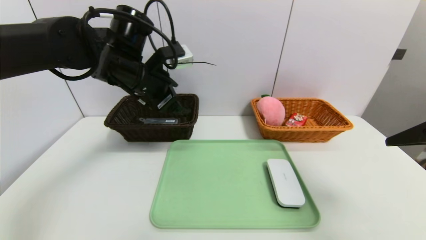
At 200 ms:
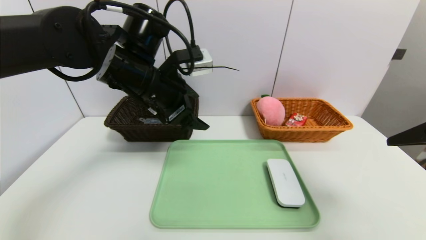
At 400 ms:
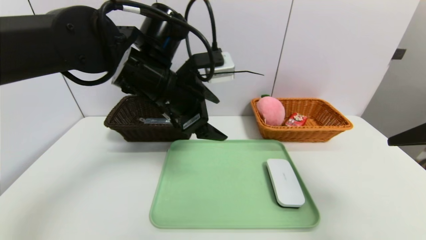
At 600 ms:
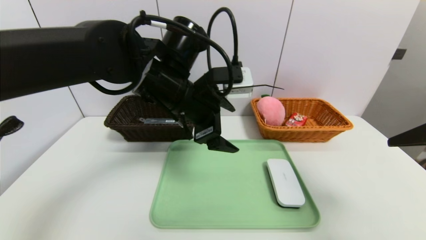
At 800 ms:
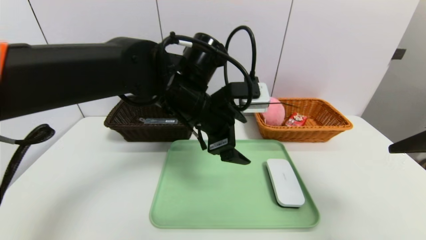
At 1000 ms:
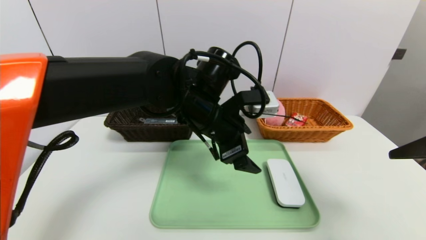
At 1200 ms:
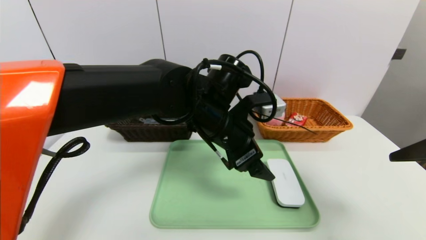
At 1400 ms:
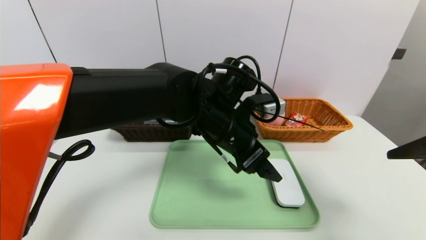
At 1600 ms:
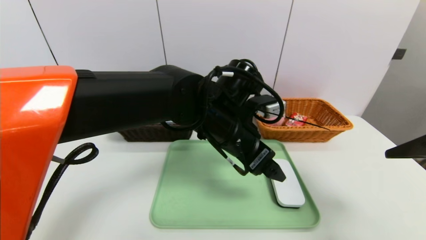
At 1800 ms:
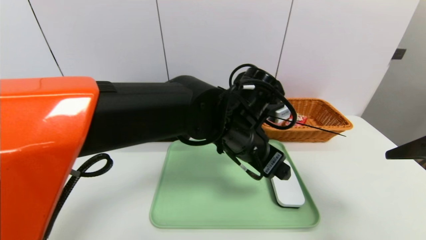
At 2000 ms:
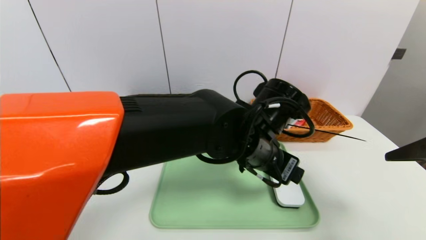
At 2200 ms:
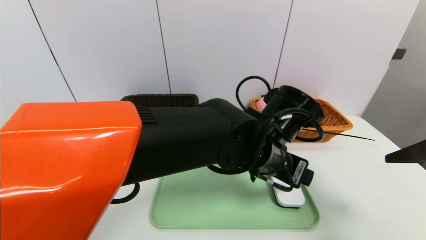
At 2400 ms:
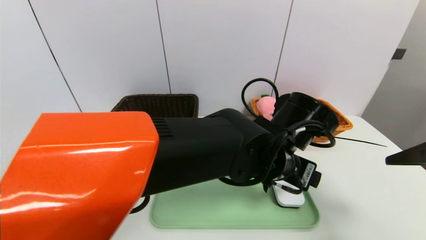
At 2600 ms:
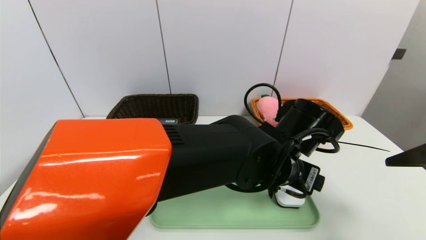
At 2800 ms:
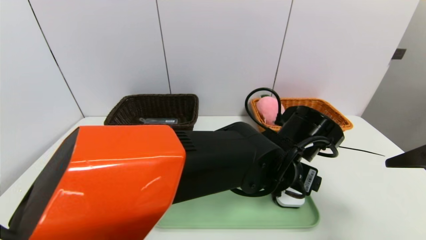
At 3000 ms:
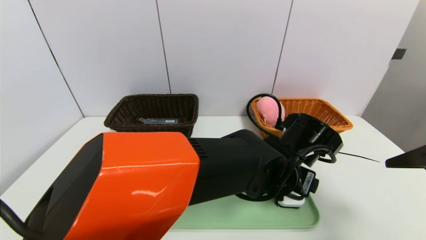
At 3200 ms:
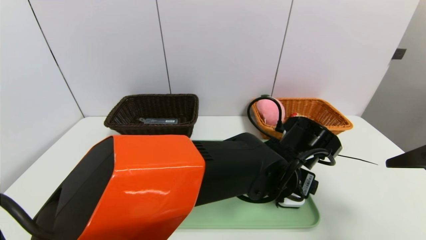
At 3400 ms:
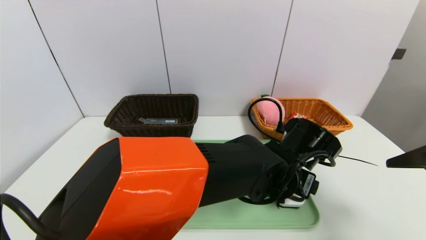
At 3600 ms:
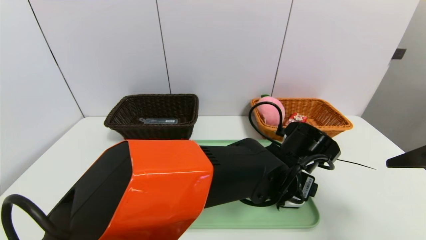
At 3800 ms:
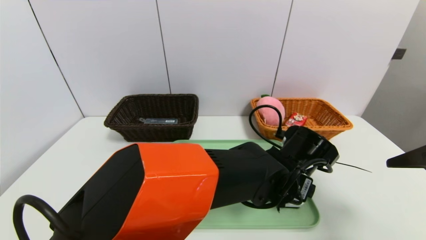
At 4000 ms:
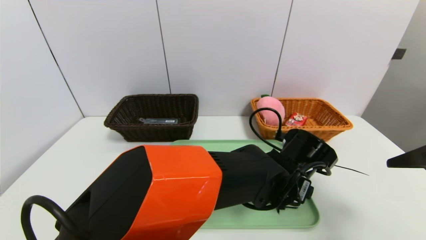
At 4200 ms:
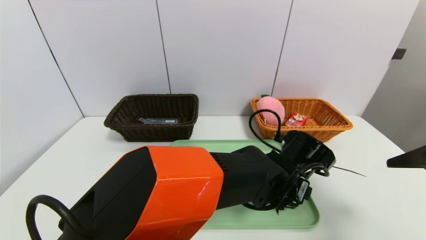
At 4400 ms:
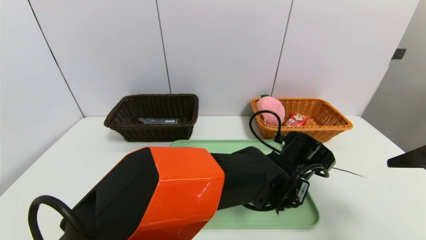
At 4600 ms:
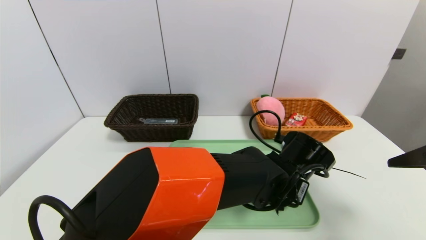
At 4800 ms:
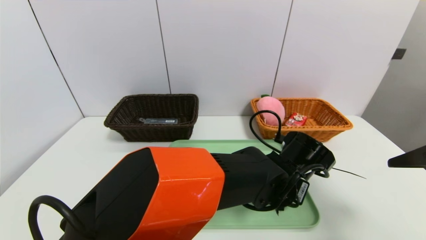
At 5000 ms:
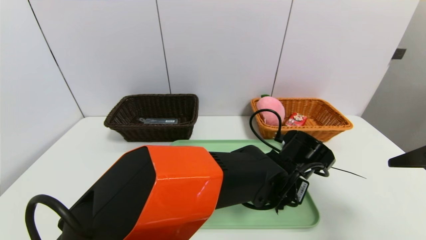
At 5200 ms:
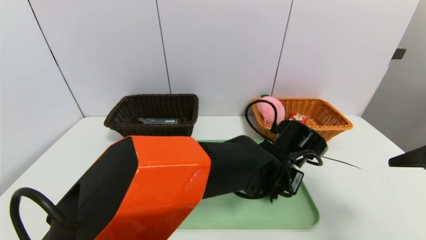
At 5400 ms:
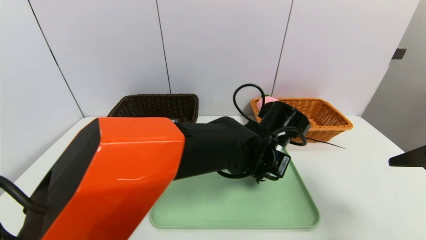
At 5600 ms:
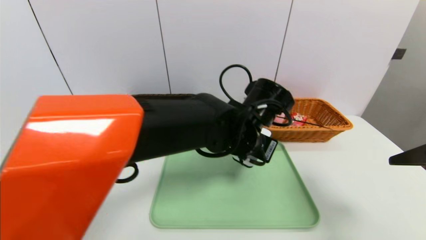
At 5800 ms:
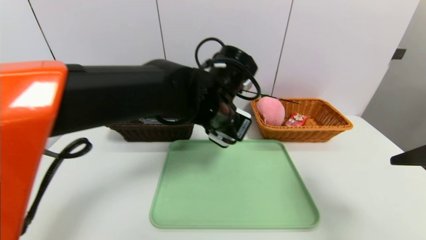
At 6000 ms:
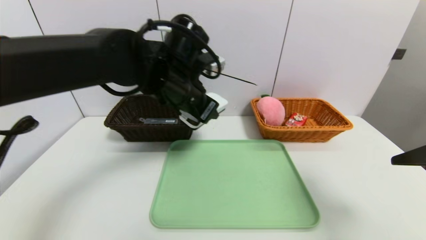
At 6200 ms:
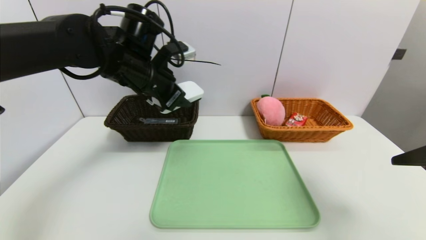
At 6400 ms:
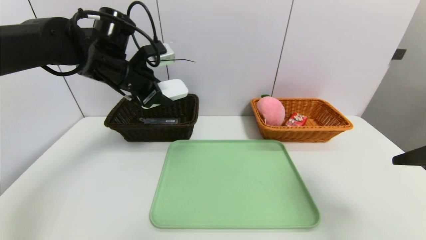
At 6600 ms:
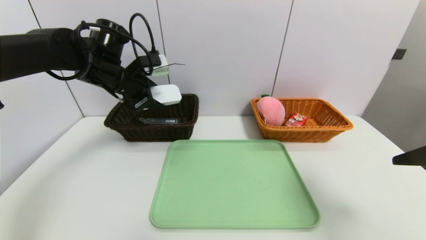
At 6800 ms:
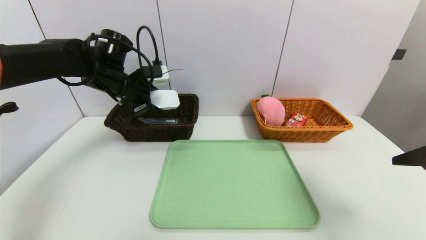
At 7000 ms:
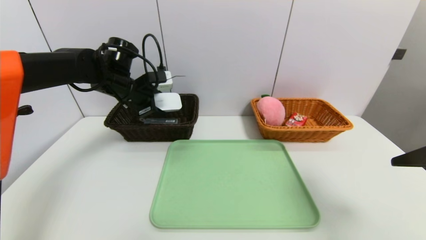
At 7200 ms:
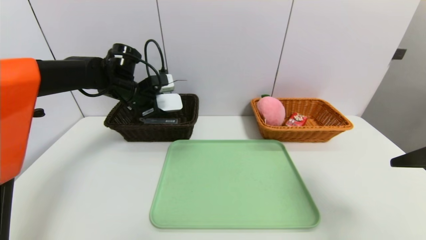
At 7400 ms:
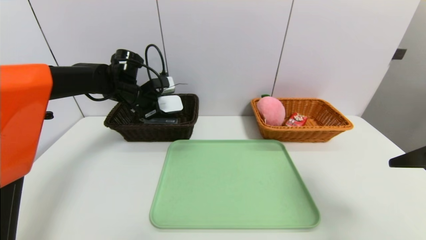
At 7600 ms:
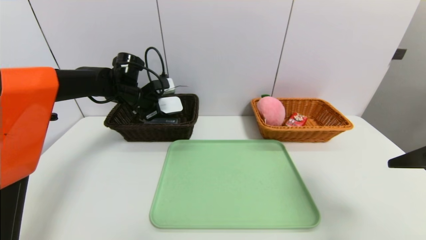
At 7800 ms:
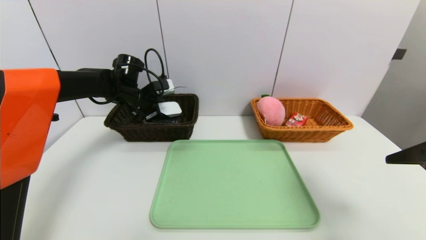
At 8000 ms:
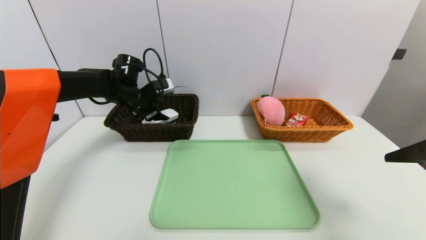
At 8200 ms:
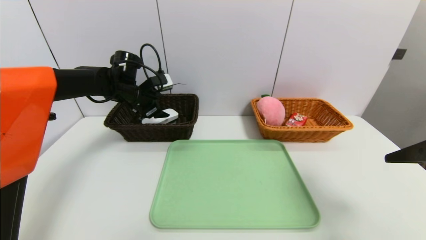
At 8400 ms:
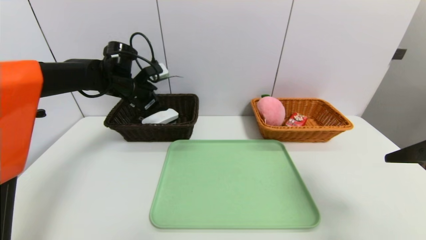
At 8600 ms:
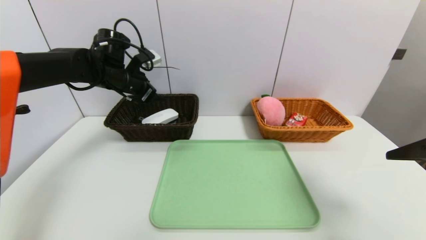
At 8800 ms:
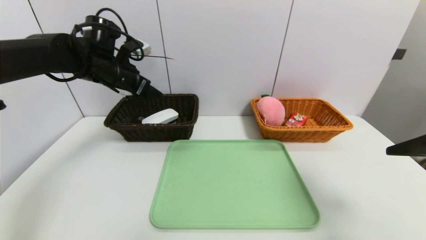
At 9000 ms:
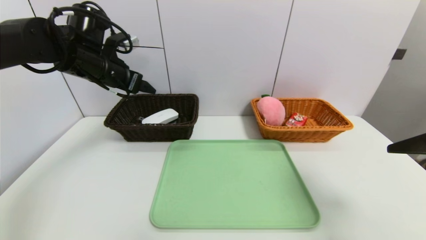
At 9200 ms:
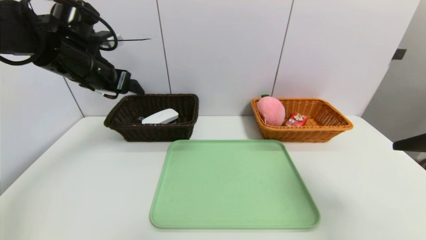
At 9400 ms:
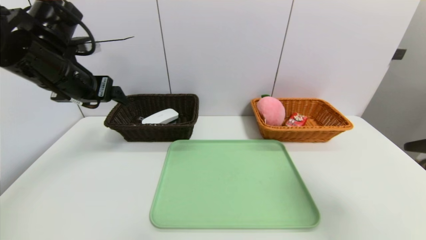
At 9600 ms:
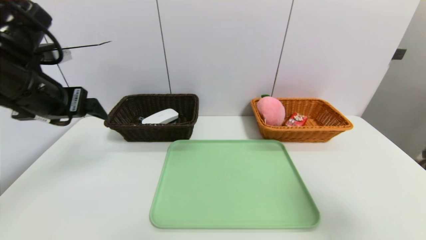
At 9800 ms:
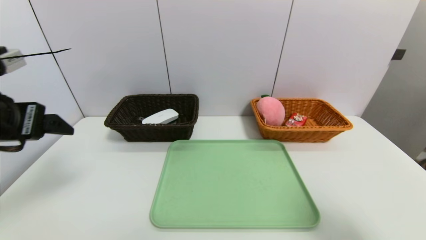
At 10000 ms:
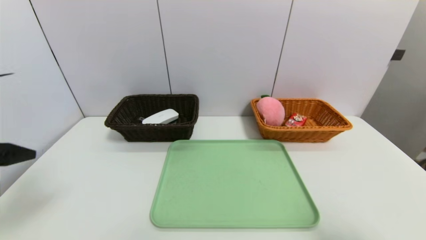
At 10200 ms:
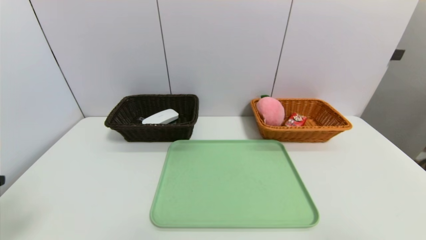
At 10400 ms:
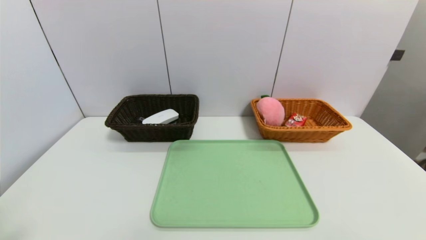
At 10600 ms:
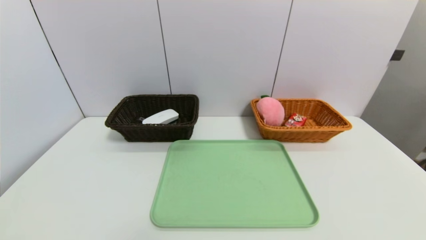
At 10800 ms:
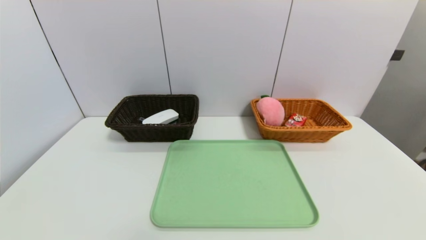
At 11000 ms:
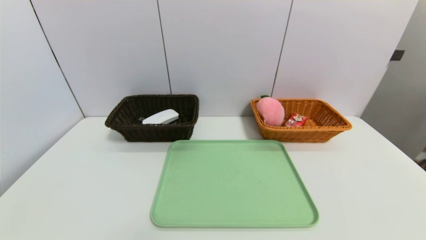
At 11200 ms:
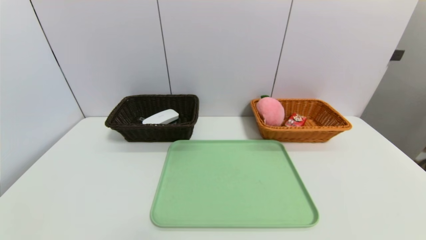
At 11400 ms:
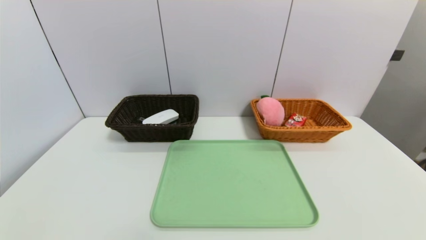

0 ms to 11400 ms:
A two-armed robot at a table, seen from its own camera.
Task of the whole recording: place the food in the right basket with the right gripper, and place the non food items in the left basket with the left gripper.
Step, 0 ms to 8200 ms: Grasp the white eraser and put it in the left basket.
0 ms to 1400 ms: The left gripper travels to the right and downward by about 15 cm.
1400 ms to 2800 ms: The left gripper is displaced to the right and downward by roughly 10 cm.
2800 ms to 4200 ms: The left gripper is displaced downward by about 5 cm.
4200 ms to 5600 ms: The left gripper goes approximately 10 cm upward and to the left, and closes.
5600 ms to 7200 ms: The left gripper moves to the left and forward, approximately 30 cm.
7200 ms to 8600 ms: The left gripper opens.
8600 ms to 10000 ms: The left gripper shifts approximately 30 cm backward, while the right gripper travels backward by about 10 cm.
10000 ms to 11400 ms: The left gripper heads downward and backward, covering approximately 20 cm, while the right gripper moves downward and backward, some 15 cm.

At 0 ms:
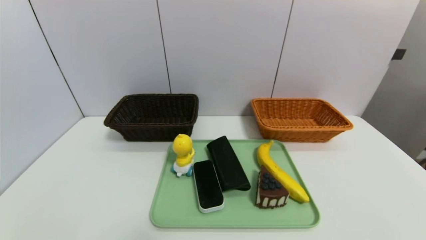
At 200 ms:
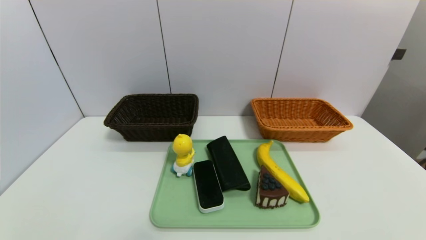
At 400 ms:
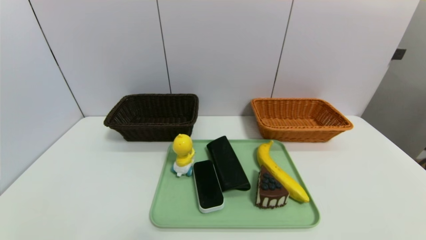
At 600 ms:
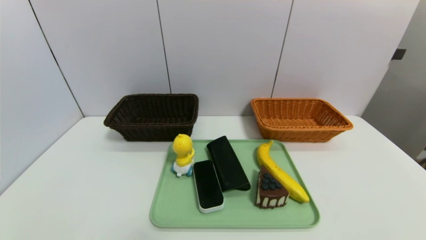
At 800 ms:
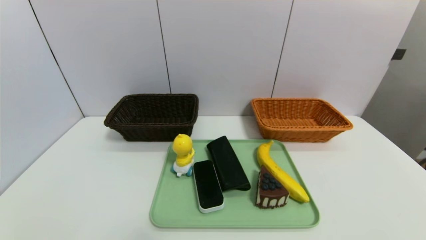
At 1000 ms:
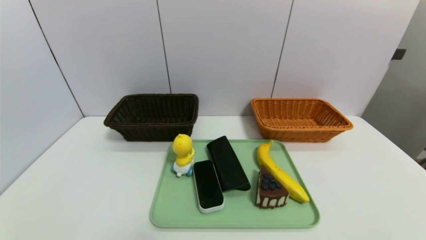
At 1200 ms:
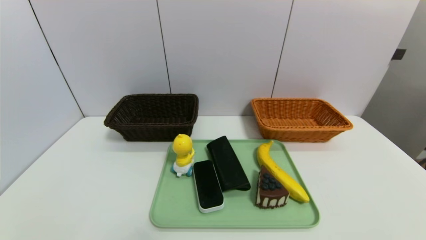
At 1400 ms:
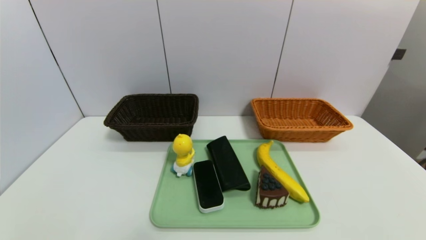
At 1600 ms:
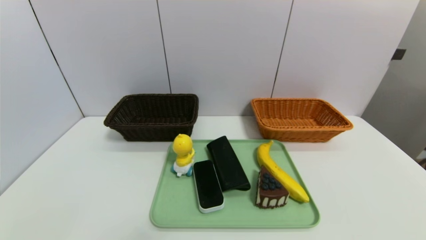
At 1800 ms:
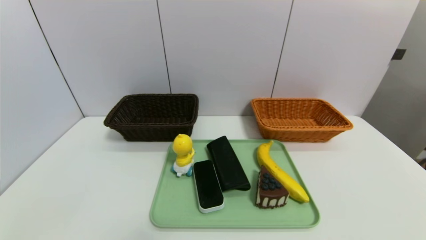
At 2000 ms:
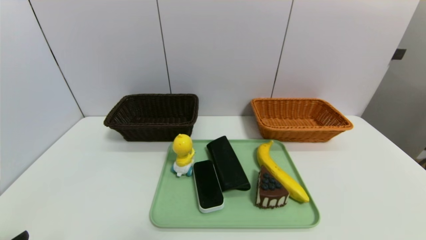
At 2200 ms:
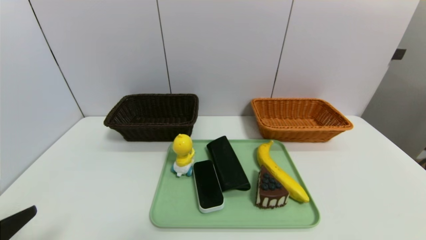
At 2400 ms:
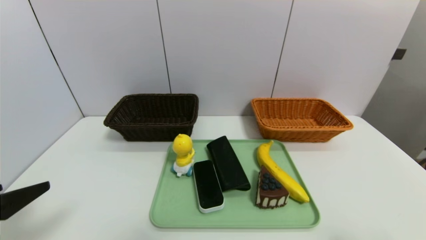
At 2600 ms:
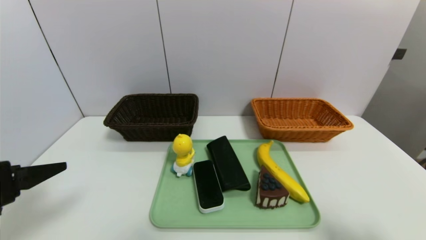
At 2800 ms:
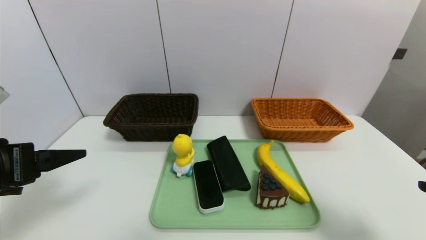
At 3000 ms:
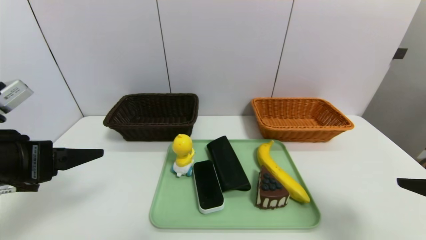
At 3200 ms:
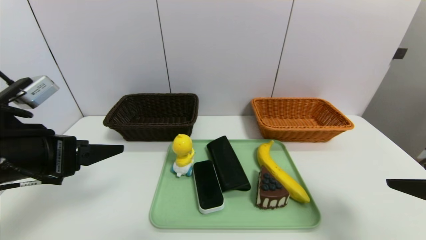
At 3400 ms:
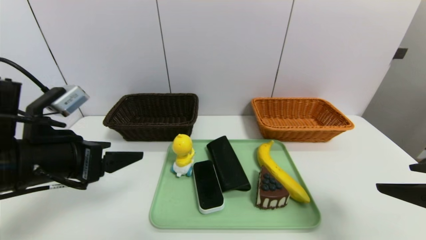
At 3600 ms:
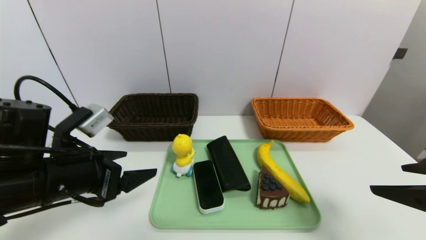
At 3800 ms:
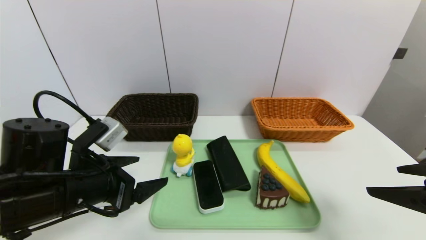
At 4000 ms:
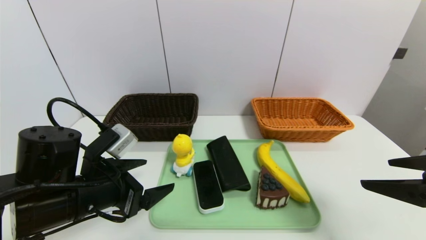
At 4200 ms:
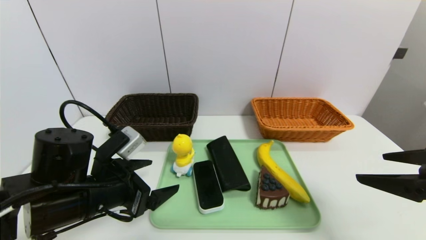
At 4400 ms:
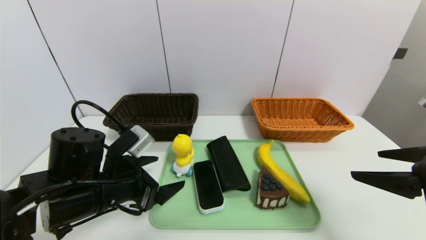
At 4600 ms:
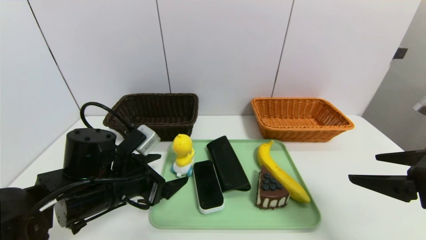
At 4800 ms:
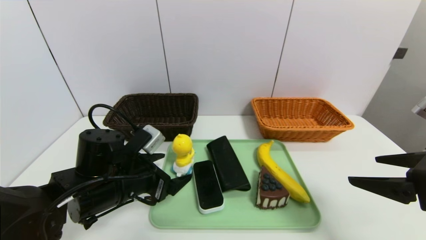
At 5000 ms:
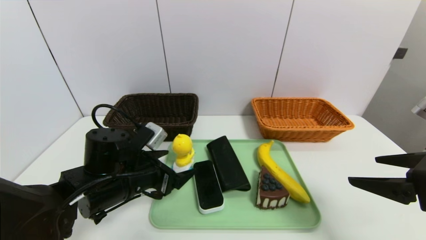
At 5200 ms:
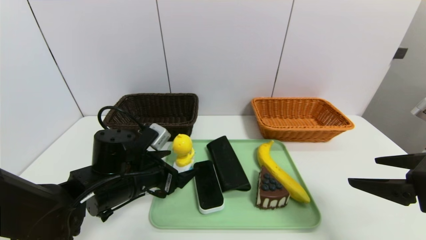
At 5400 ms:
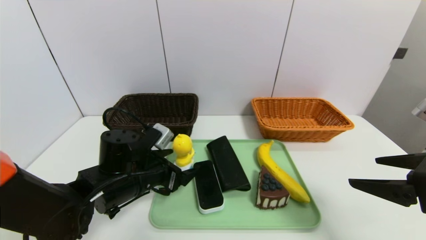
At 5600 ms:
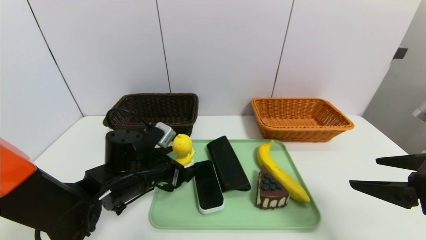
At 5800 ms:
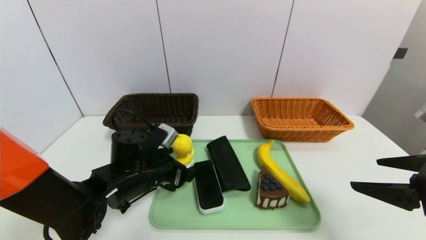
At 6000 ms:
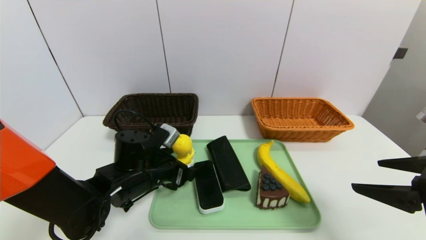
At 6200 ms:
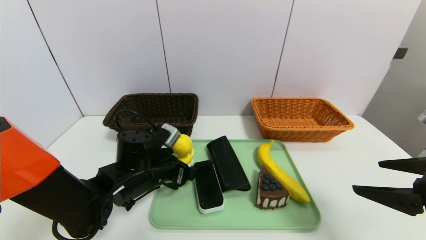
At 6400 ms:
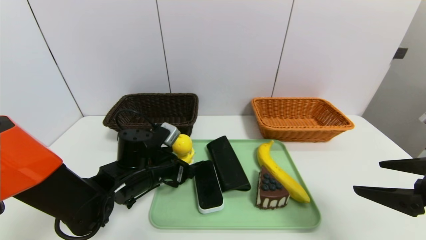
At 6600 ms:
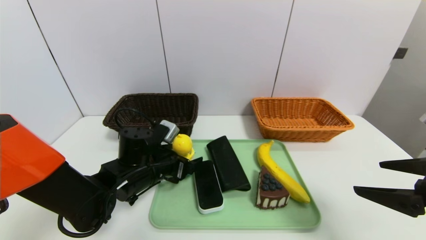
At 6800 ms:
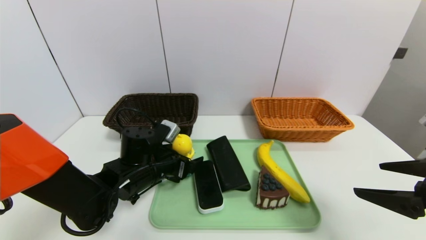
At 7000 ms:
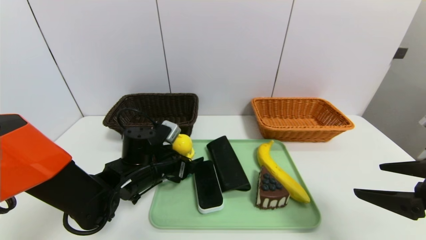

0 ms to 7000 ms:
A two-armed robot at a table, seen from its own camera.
Task of the whole recording: place the food in the right basket with the right gripper, and place the non food items in the left basket with the left gripper.
1400 ms to 2800 ms: Both grippers move upward and forward, some 20 cm.
2800 ms to 4200 ms: The left gripper shifts roughly 15 cm to the right, downward and forward; the right gripper is displaced forward by about 5 cm.
4200 ms to 5600 ms: The left gripper is displaced forward by approximately 5 cm.
5600 ms to 7000 ms: The grippers move only a little.
